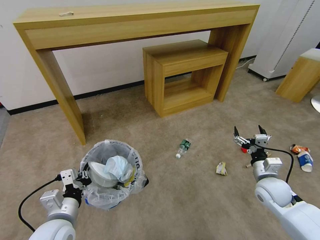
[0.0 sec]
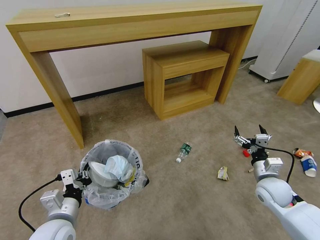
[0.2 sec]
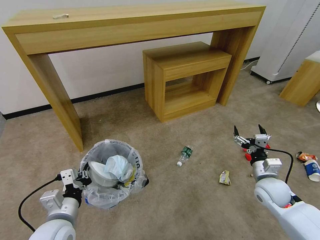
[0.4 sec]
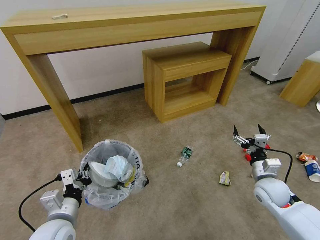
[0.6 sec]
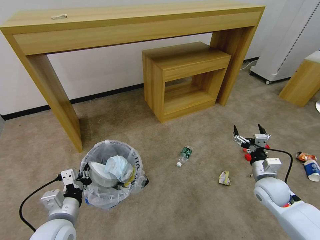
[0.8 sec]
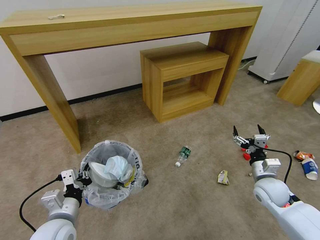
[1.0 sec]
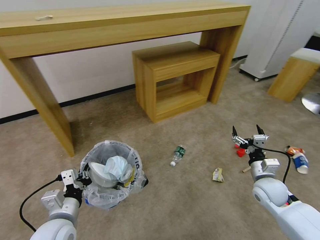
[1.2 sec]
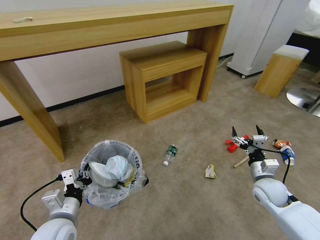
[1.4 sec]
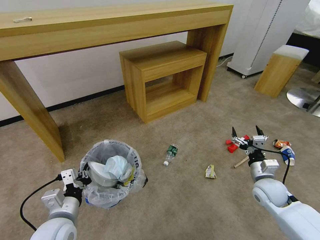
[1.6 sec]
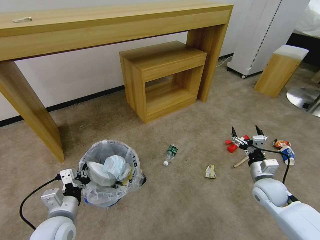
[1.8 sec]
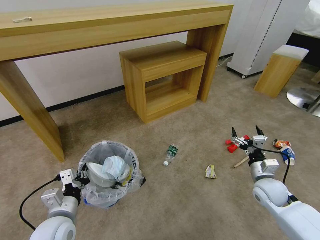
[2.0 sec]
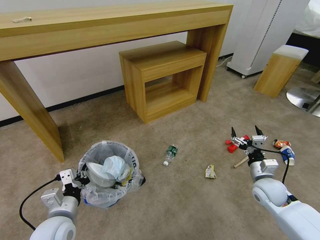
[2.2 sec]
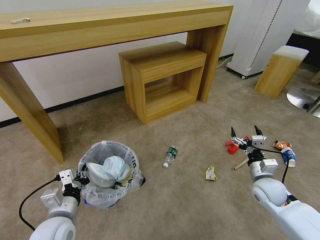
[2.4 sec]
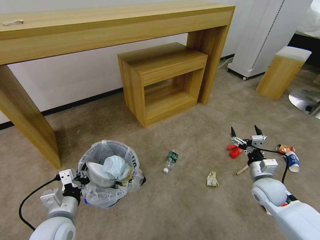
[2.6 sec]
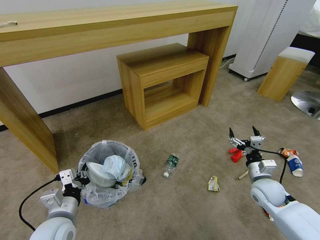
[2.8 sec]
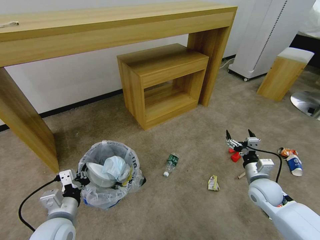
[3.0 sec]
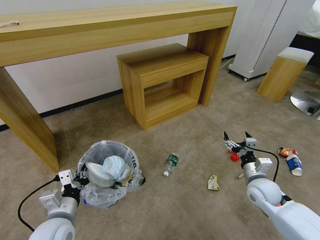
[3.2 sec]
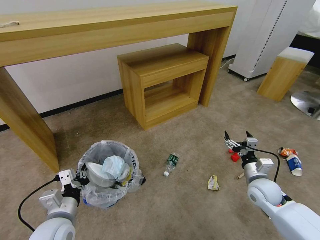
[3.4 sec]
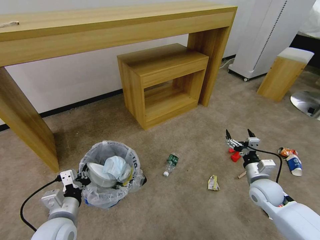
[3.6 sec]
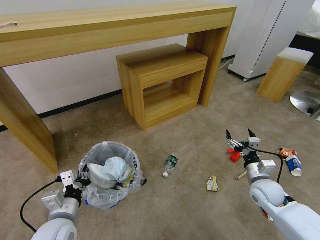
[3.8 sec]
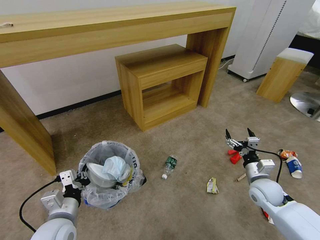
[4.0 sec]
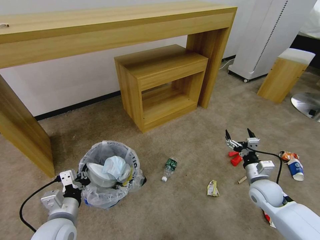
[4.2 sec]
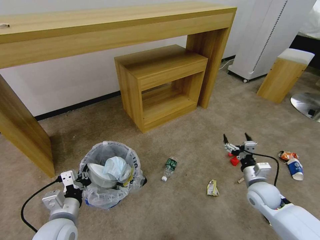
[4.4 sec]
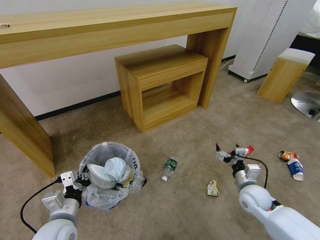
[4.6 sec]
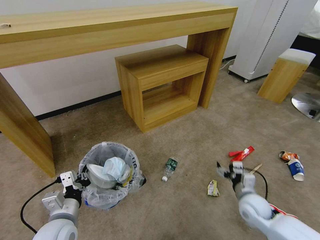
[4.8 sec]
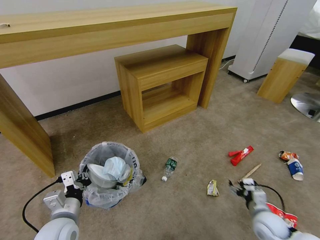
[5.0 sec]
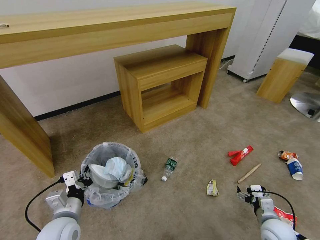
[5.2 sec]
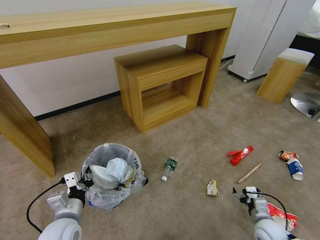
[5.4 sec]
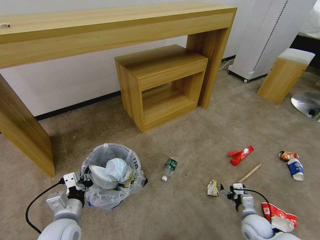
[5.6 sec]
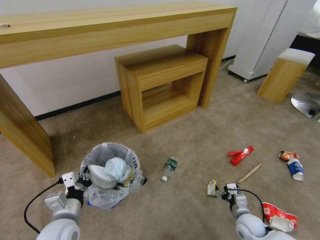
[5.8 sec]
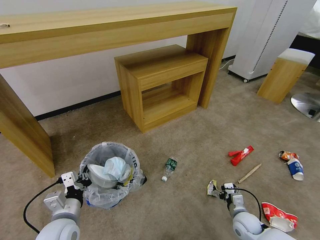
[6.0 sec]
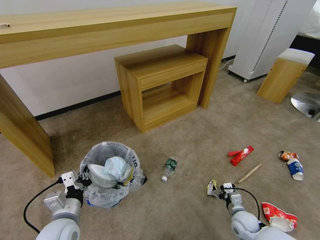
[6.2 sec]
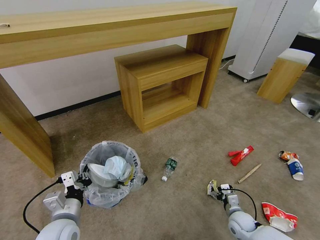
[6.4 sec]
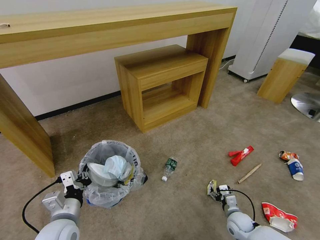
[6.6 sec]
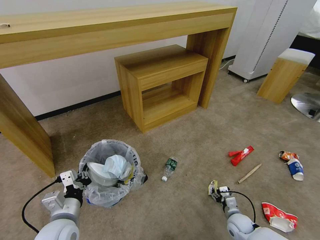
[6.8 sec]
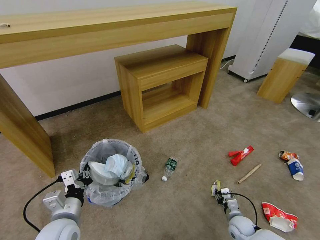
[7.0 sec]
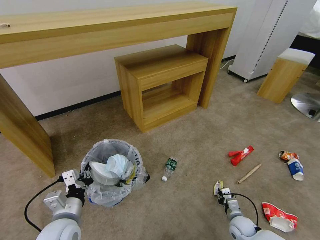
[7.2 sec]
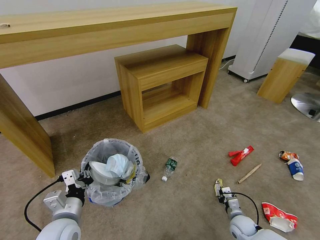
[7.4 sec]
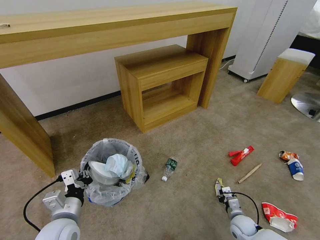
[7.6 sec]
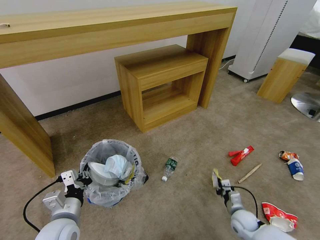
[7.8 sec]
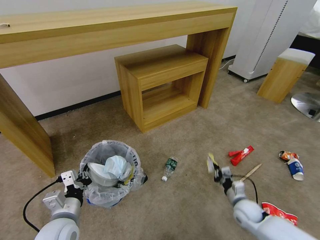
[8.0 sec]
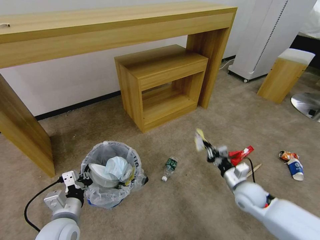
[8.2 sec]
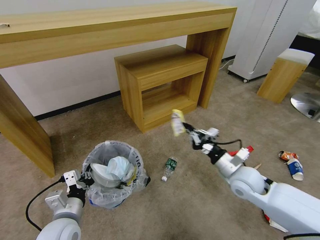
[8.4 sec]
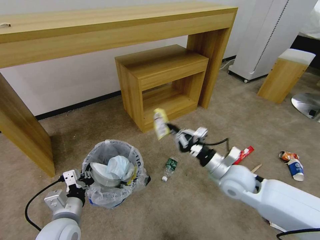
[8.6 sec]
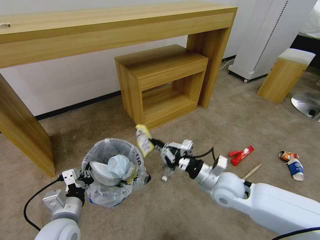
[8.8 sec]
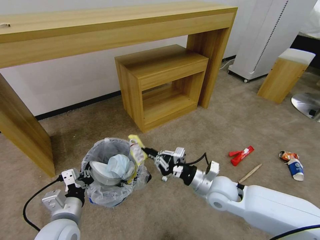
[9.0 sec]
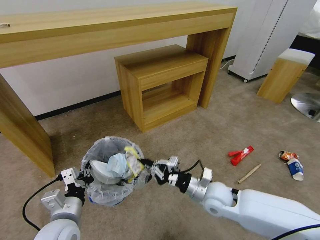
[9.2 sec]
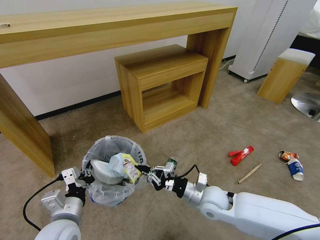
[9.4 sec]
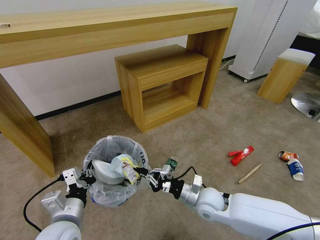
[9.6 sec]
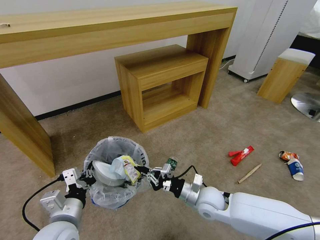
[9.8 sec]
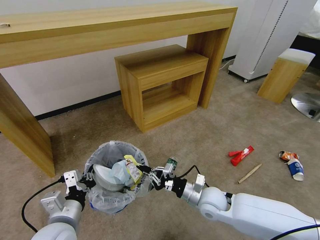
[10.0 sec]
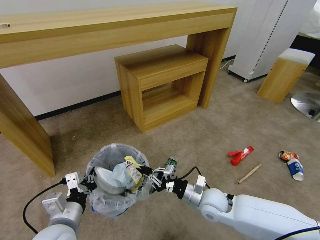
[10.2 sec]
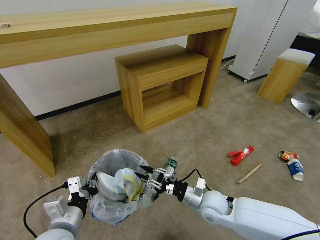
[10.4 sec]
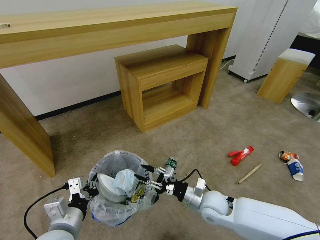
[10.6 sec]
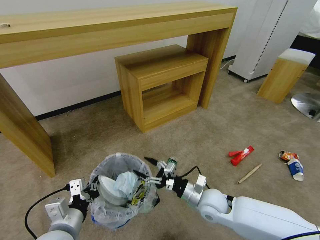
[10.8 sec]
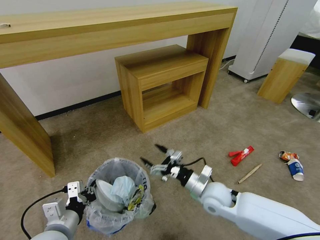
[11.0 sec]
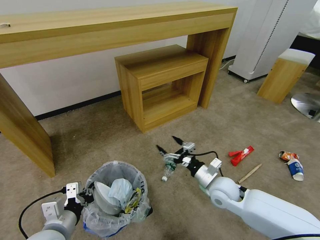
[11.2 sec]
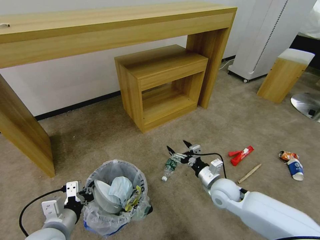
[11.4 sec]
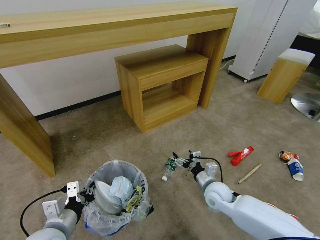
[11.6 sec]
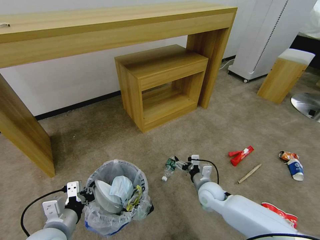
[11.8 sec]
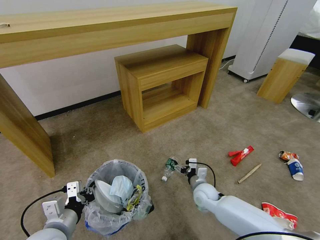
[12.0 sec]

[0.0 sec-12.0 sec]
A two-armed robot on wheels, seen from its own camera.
Task of the whole recording: Pick up the trash bin and place the garbage on the floor into it.
3.0 sec to 4.4 sec: The grippers make only small movements.
4.4 sec to 6.0 sec: The right gripper shifts some 15 cm downward and backward.
6.0 sec to 7.6 sec: The right gripper closes its fingers.
7.6 sec to 9.0 sec: The right gripper moves upward and to the left, roughly 30 cm.
9.0 sec to 10.4 sec: The right gripper is displaced downward by about 5 cm.
10.4 sec to 12.0 sec: The right gripper travels downward and forward by about 10 cm, and opens up.

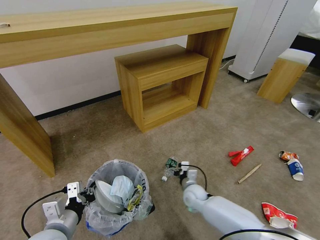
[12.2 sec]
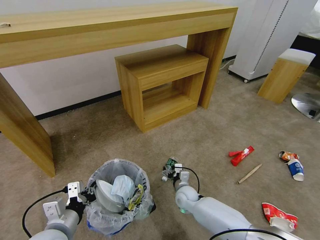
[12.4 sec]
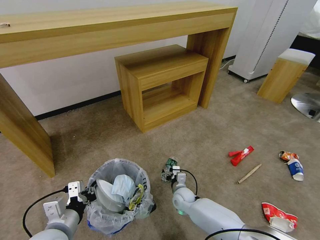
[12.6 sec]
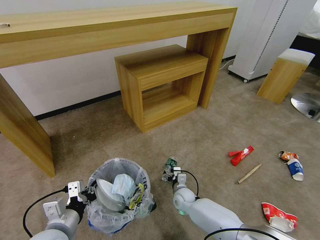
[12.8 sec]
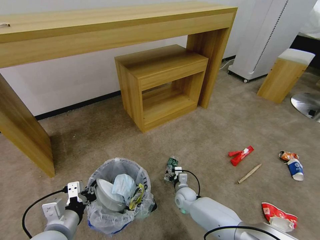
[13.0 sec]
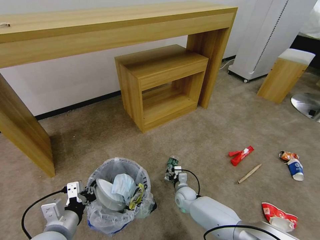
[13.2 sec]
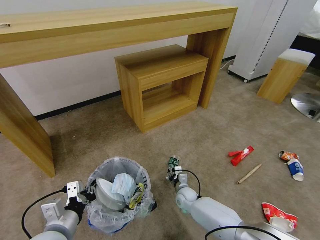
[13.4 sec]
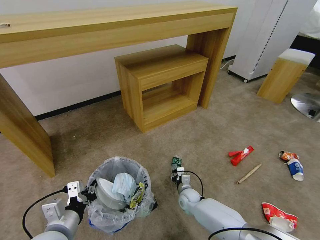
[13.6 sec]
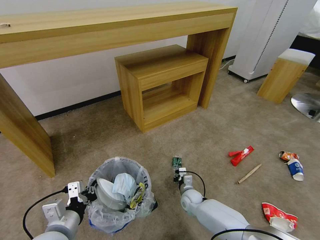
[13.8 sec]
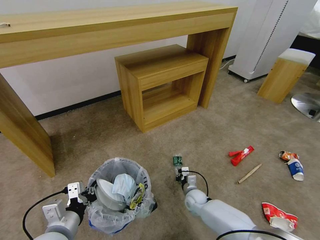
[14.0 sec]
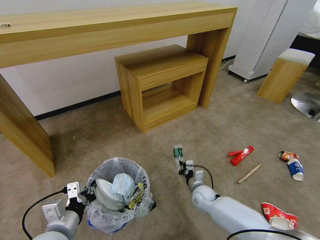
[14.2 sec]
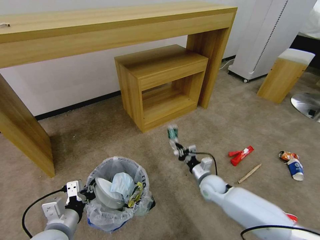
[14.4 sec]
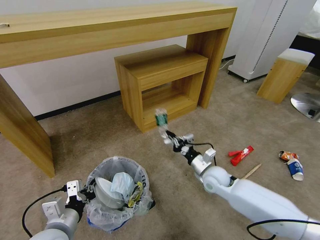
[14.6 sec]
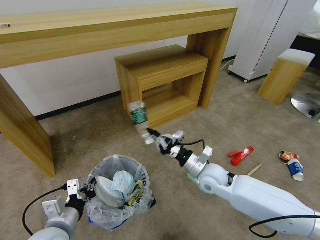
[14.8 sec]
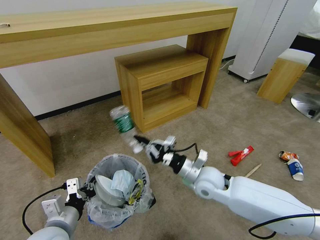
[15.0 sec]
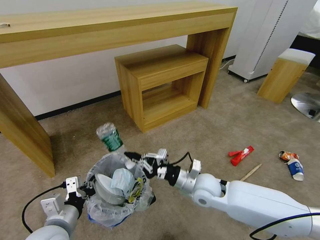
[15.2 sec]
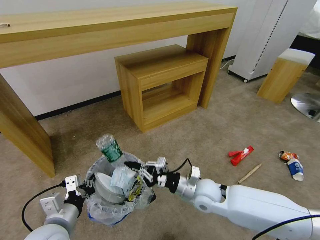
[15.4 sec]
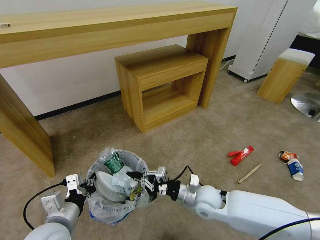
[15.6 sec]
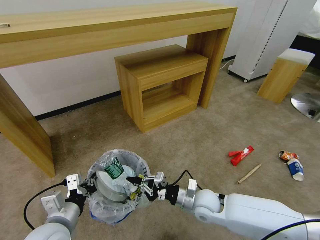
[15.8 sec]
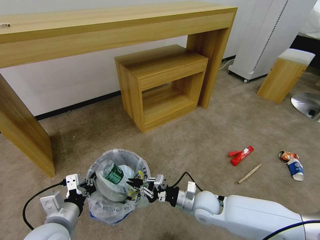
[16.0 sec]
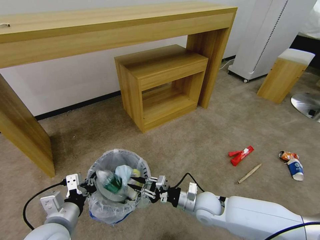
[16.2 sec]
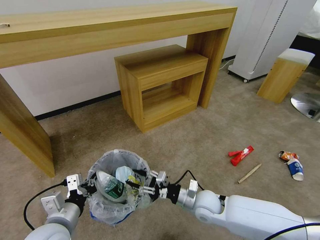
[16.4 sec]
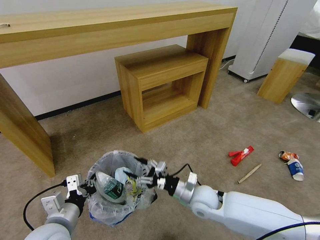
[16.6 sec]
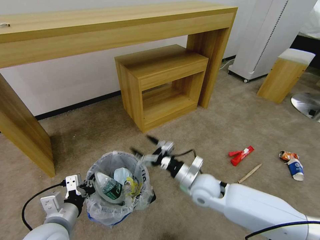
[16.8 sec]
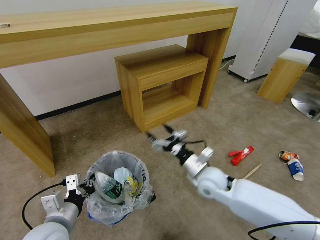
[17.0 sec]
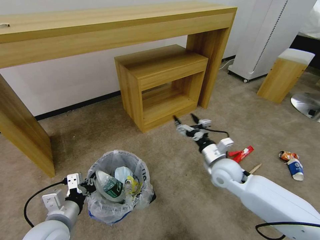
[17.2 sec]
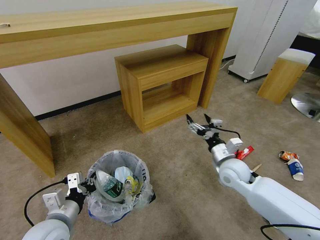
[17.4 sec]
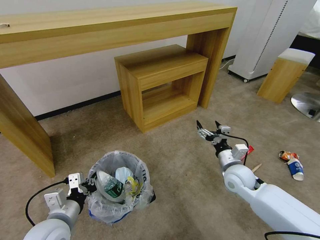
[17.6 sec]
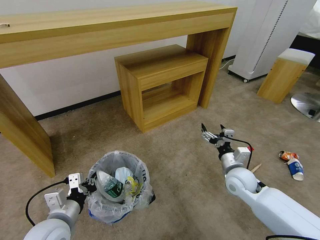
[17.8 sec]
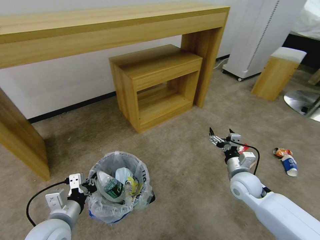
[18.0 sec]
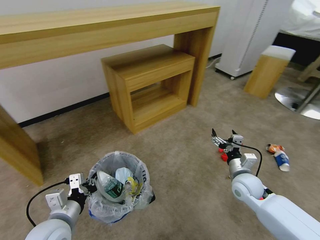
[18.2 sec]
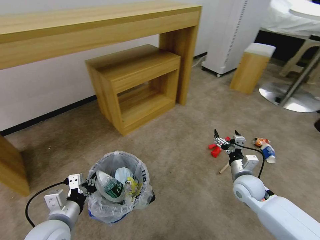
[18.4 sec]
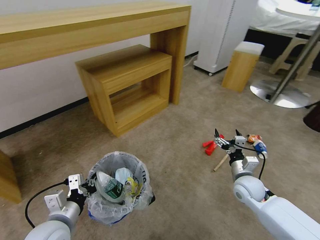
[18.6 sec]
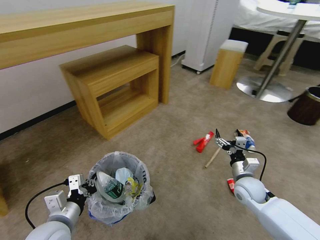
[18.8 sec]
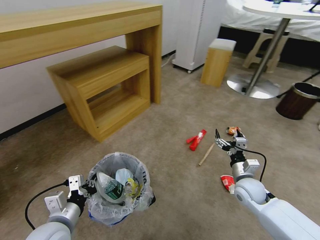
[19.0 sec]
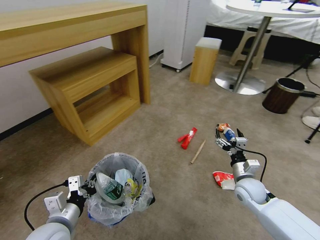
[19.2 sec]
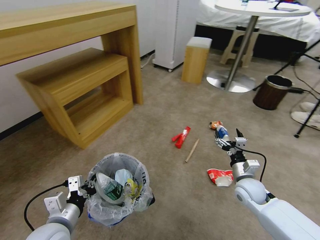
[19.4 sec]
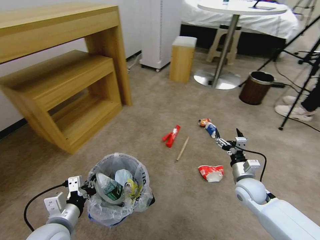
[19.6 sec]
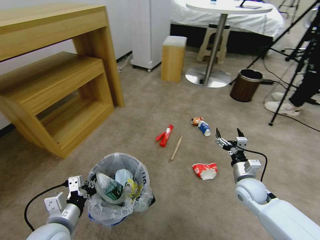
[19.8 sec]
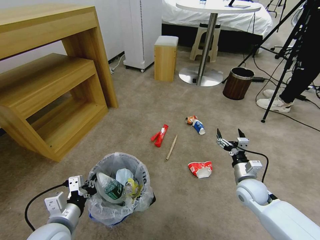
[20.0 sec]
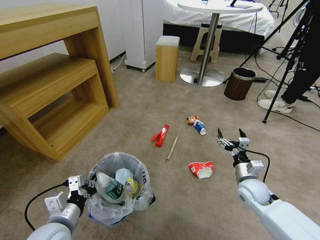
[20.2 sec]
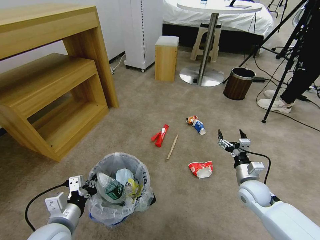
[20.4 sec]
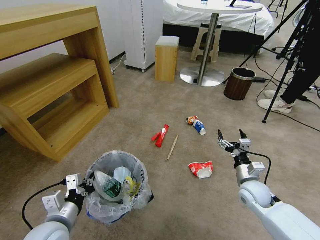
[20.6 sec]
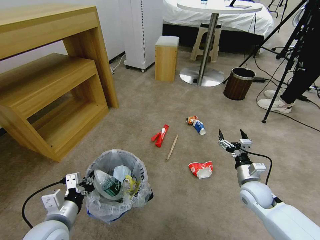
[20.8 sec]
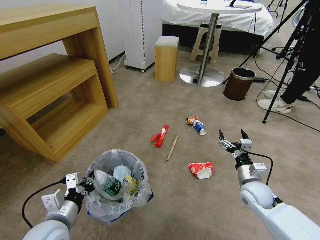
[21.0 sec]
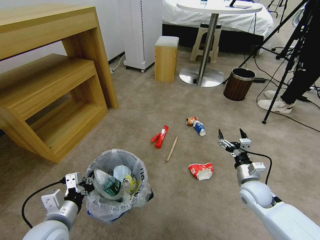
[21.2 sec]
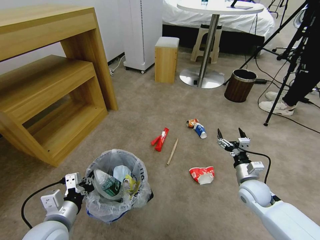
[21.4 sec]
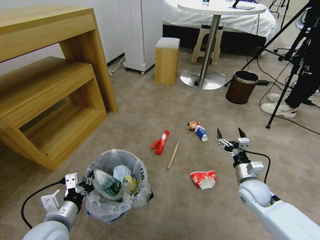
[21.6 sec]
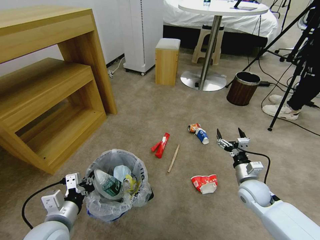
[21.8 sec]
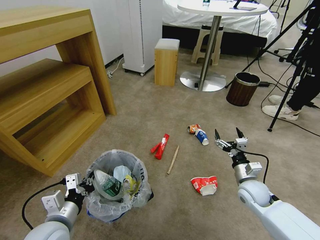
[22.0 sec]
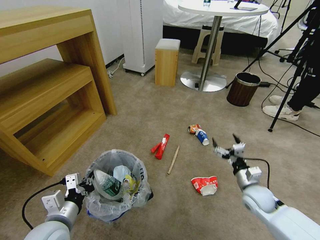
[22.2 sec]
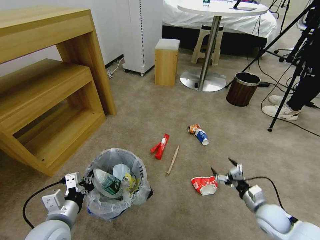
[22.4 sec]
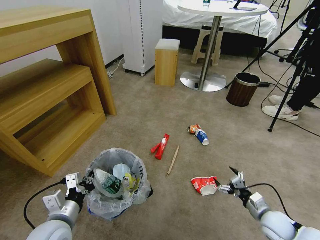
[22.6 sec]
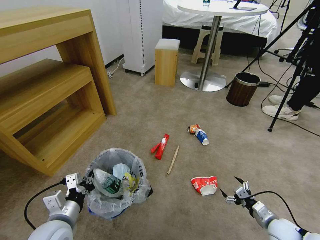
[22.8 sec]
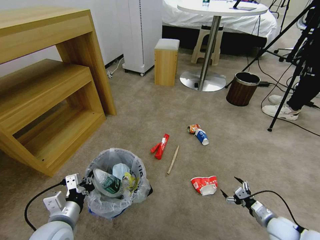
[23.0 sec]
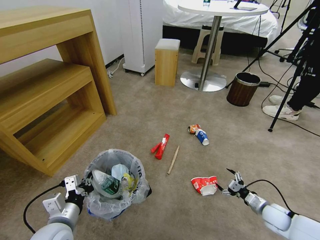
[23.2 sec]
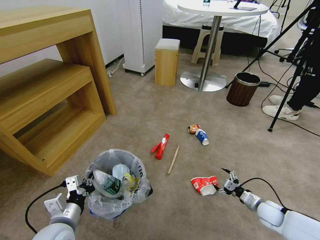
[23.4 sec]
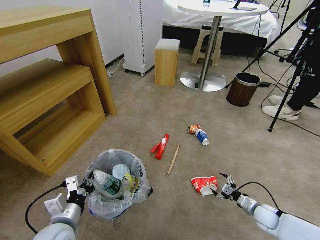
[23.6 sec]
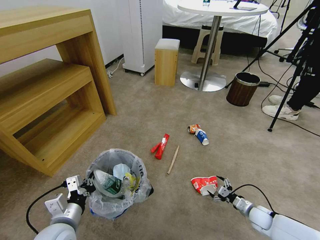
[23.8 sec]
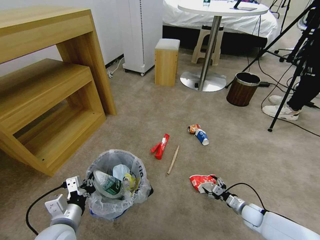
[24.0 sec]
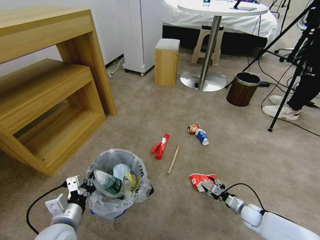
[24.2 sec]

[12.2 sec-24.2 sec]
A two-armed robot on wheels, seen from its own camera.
Task of the whole recording: Pick up the trash bin and place the garbage on the floor into it.
12.2 sec to 13.8 sec: The right gripper moves downward, approximately 5 cm, and closes.
13.8 sec to 15.2 sec: The right gripper goes approximately 25 cm upward.
15.2 sec to 16.6 sec: The right gripper opens up.
16.6 sec to 18.2 sec: The right gripper shifts about 15 cm to the right.
21.2 sec to 22.6 sec: The right gripper goes about 15 cm backward, to the right and downward.
22.6 sec to 24.2 sec: The right gripper goes approximately 15 cm downward and forward, and closes up.
